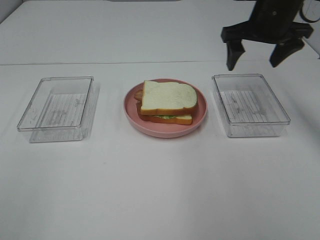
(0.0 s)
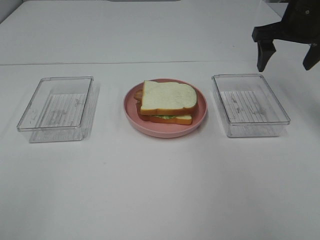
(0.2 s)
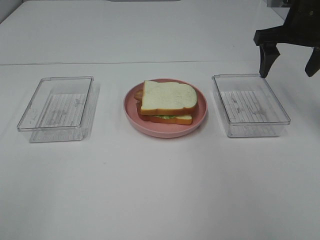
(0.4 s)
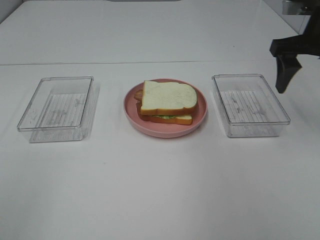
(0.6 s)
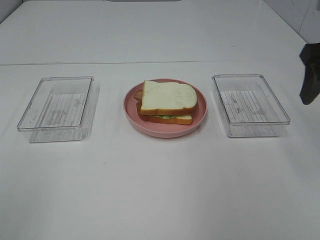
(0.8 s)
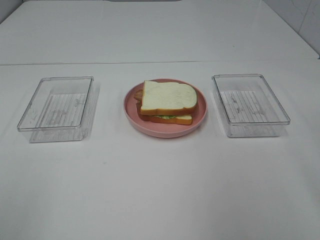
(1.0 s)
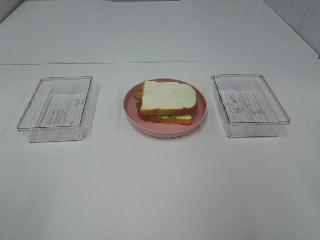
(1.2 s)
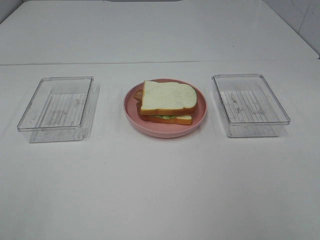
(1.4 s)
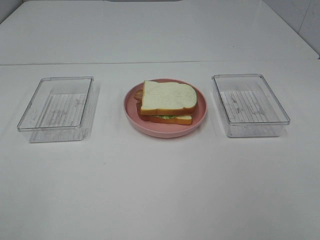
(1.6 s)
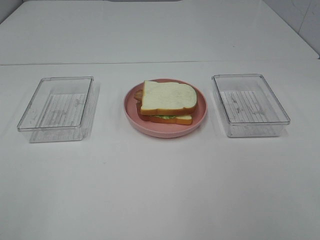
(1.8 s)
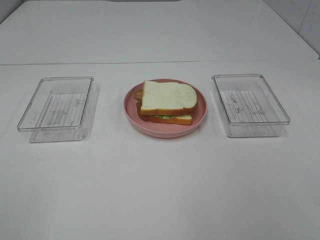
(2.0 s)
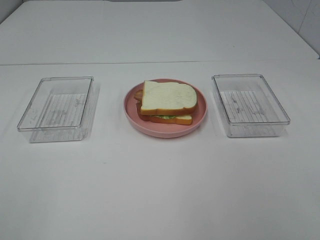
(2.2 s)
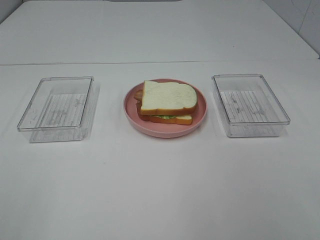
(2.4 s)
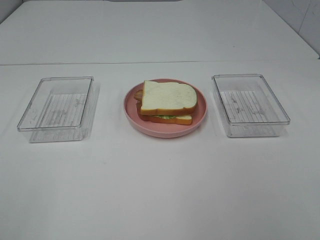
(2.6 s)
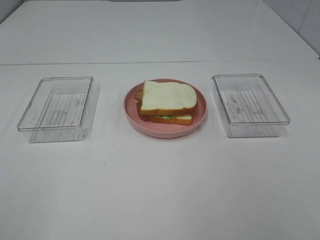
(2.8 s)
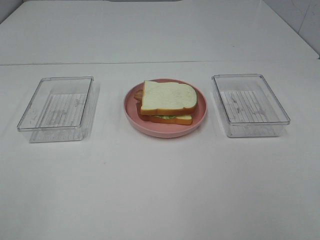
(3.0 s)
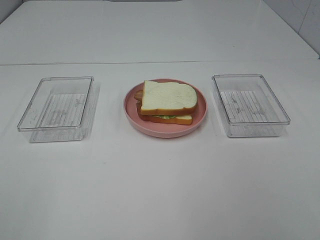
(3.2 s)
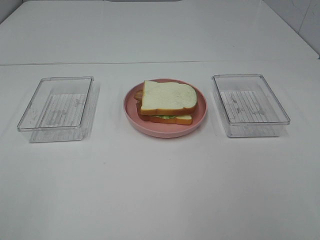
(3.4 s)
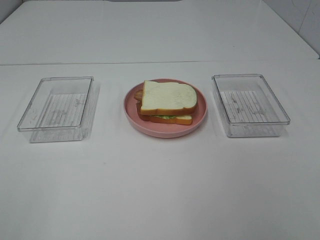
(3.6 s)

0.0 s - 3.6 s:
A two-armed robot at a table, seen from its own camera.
Task of the whole recording: Make sandwiches.
0.0 s - 1.8 s: The right gripper is displaced backward by about 40 cm.
